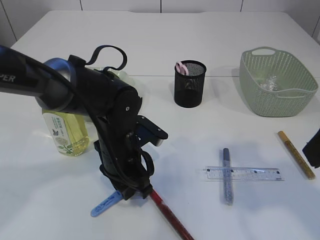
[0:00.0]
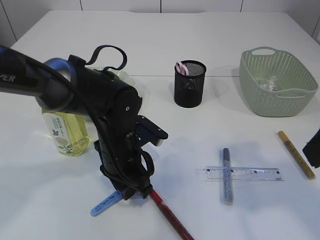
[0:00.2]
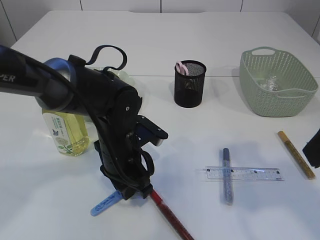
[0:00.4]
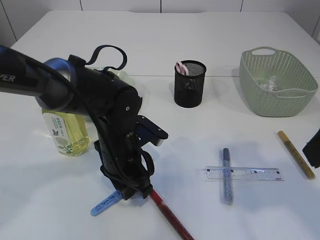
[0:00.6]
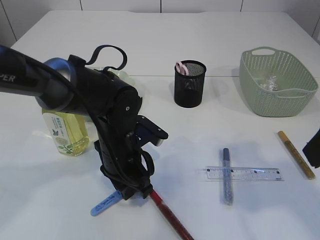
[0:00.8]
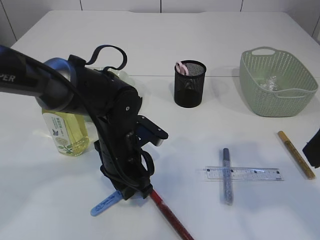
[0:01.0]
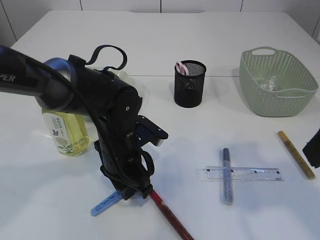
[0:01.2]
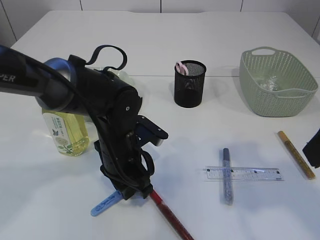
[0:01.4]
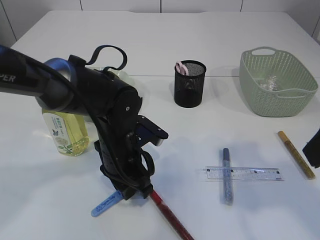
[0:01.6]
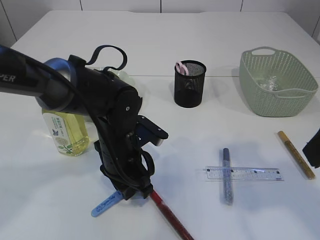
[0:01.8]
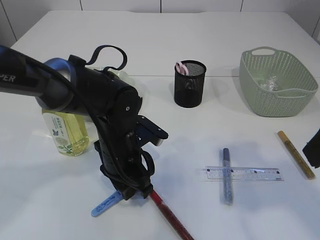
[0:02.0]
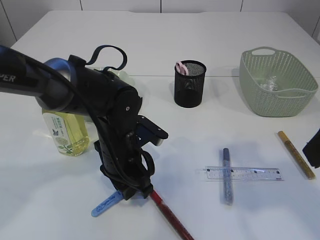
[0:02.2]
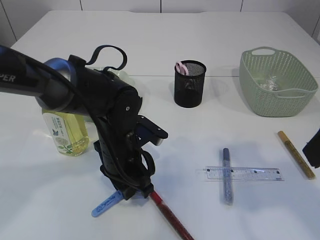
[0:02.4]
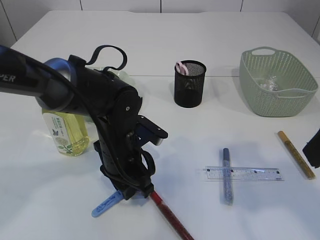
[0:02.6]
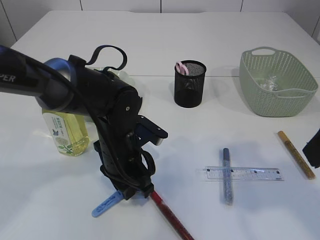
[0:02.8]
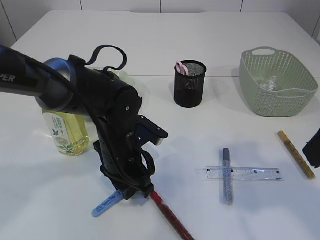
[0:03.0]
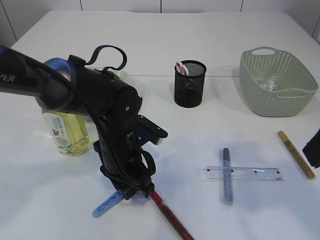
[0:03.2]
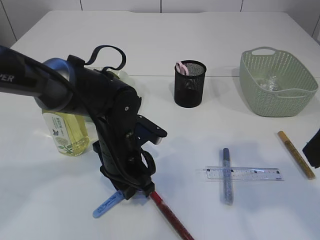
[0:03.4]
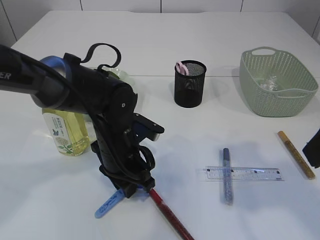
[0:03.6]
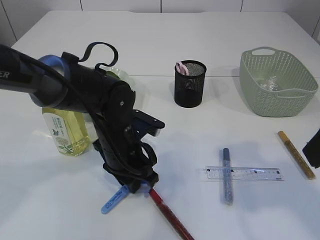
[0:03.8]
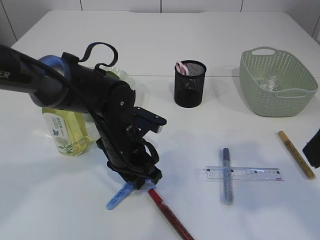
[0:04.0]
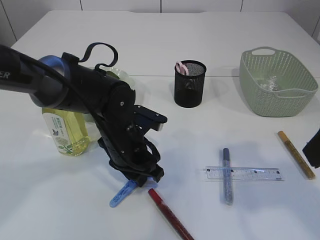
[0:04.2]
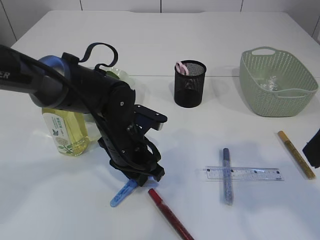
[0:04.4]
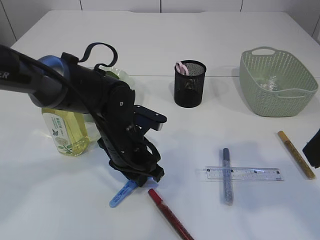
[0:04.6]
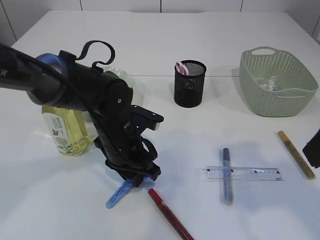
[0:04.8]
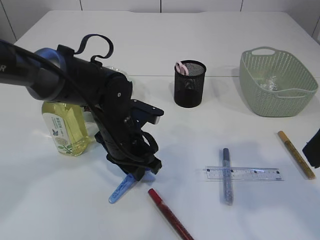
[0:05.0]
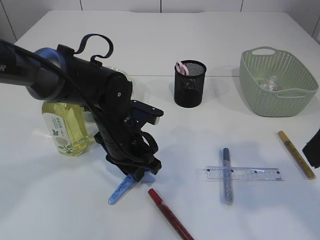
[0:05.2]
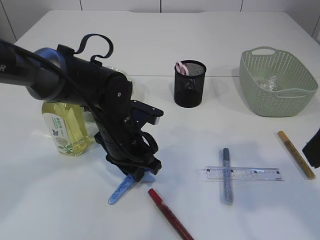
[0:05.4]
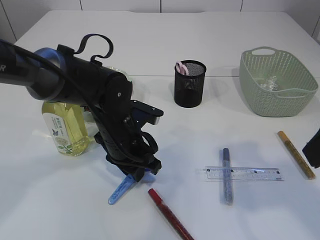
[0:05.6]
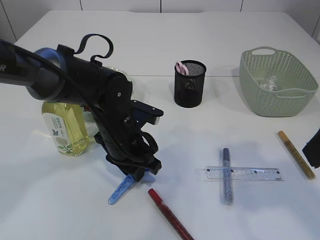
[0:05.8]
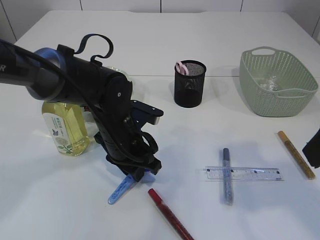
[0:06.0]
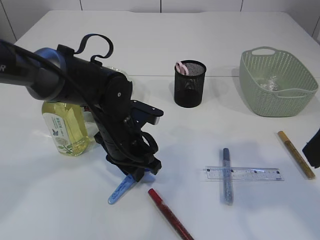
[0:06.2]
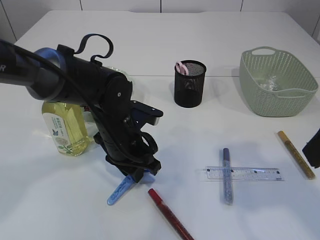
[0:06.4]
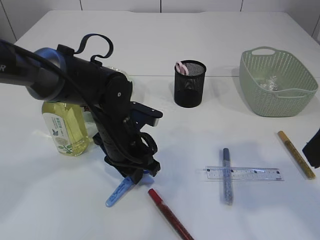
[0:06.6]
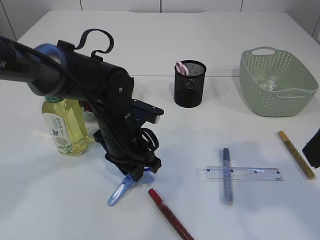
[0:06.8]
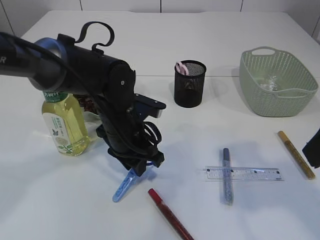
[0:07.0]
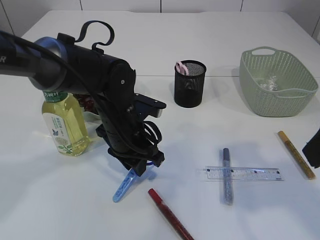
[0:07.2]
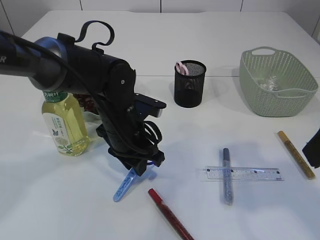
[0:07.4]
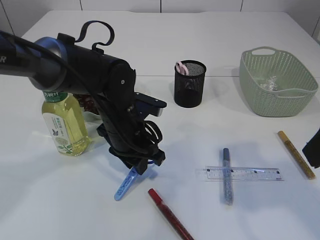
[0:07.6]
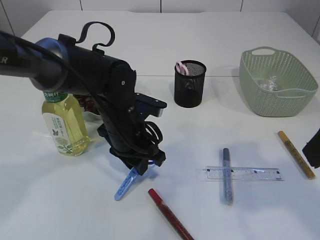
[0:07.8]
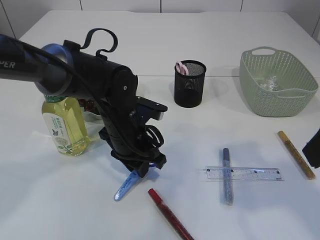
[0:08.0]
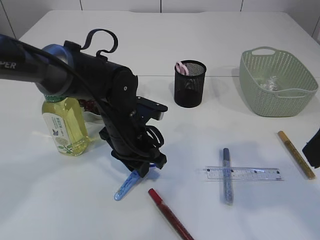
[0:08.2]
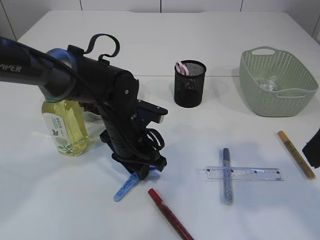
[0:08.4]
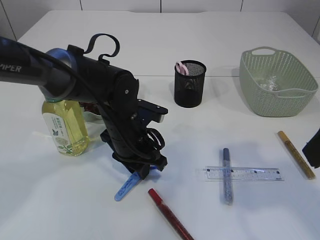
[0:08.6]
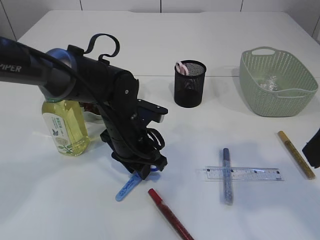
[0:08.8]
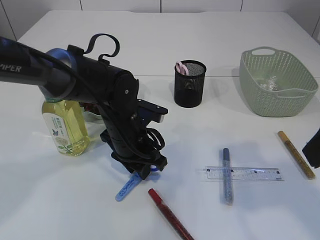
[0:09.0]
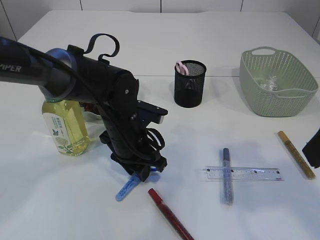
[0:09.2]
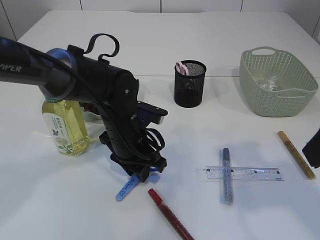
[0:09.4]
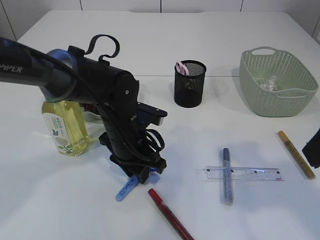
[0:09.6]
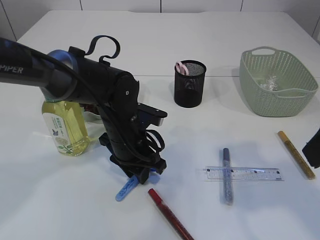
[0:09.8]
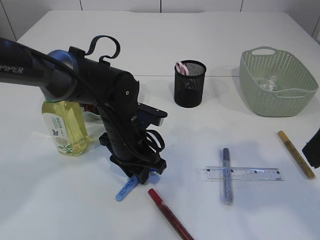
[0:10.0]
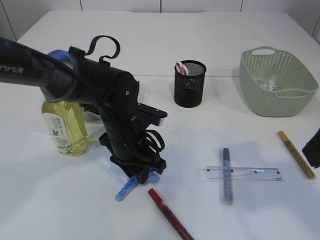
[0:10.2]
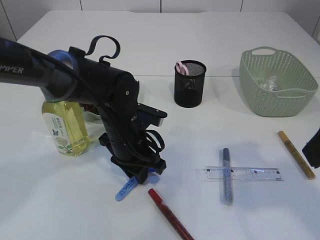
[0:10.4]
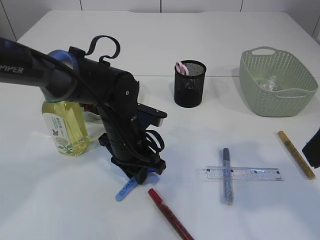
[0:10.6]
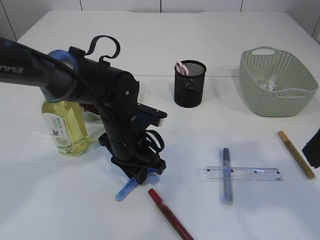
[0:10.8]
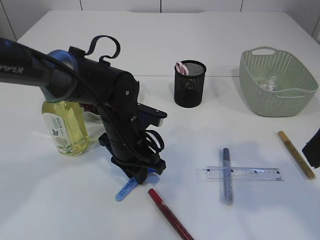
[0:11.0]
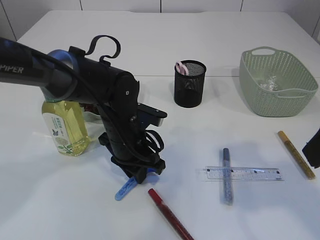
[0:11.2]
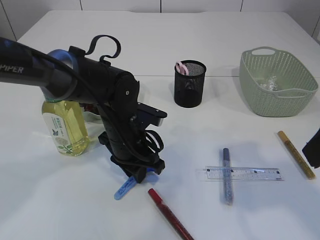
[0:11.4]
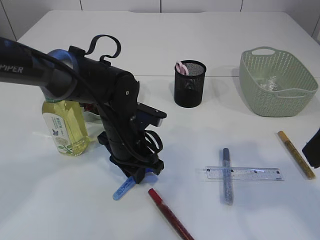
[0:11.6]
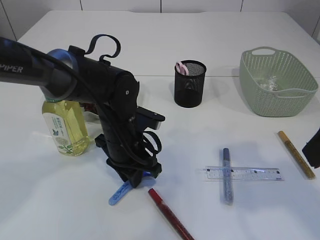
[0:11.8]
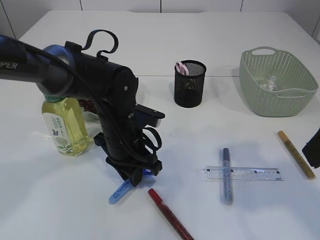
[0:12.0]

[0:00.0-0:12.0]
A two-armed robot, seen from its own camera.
0:00.0 to 0:03.0: Both grippers stay put.
0:03.0 to 0:04.4: The grippers move only a little.
0:04.4 to 0:06.0: Both grippers stay about where they are.
0:06.0 to 0:09.0: The grippers stay close to where they were, moving slightly.
0:09.0 to 0:10.4: The two grippers keep their place.
0:10.4 to 0:12.0: Both grippers stay put.

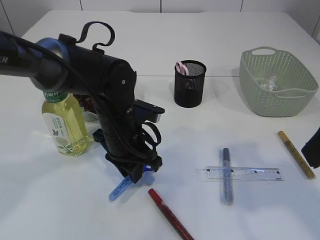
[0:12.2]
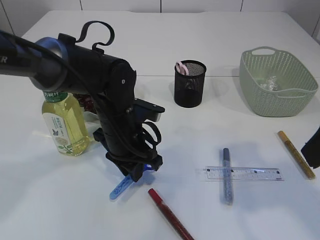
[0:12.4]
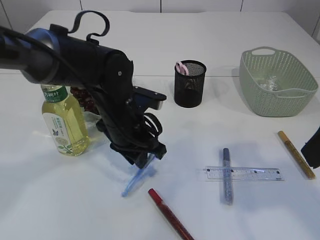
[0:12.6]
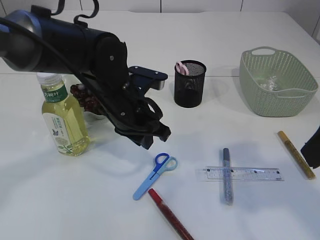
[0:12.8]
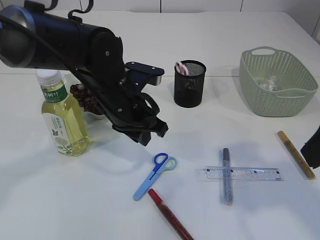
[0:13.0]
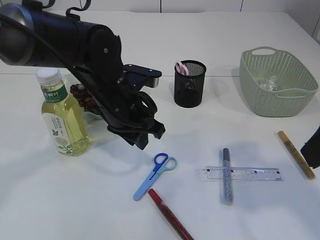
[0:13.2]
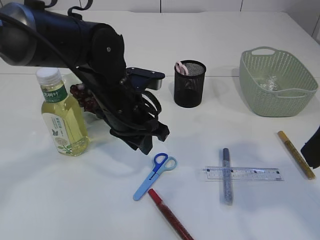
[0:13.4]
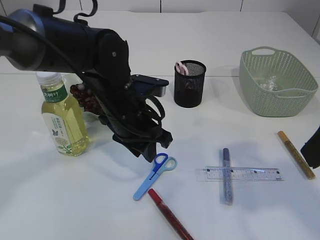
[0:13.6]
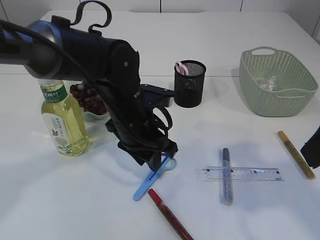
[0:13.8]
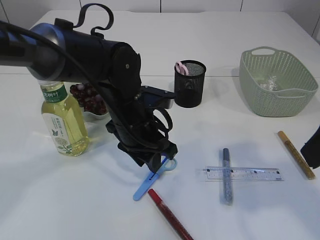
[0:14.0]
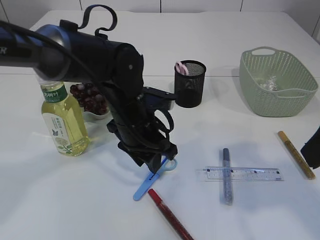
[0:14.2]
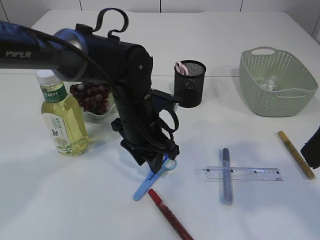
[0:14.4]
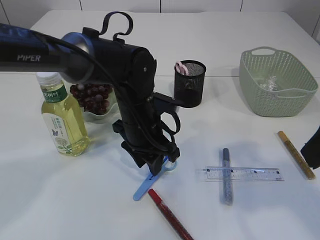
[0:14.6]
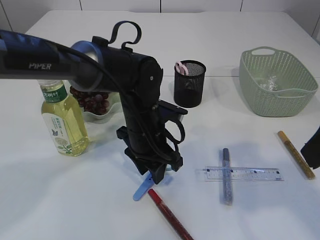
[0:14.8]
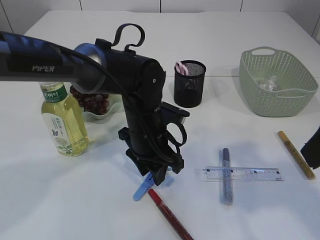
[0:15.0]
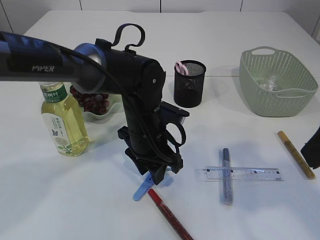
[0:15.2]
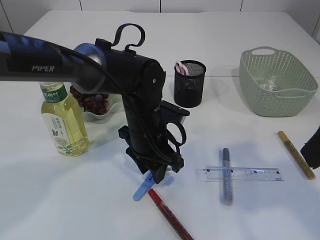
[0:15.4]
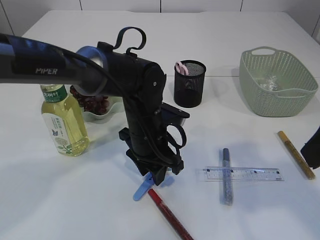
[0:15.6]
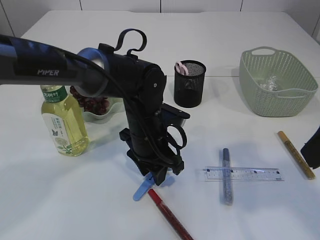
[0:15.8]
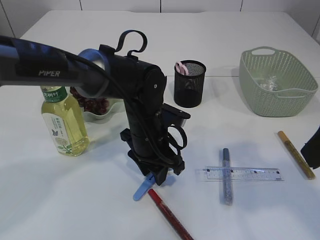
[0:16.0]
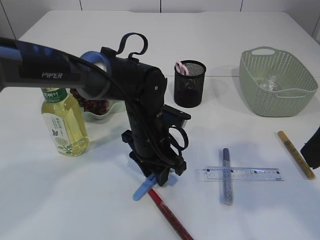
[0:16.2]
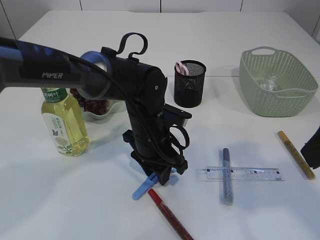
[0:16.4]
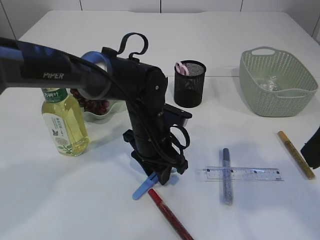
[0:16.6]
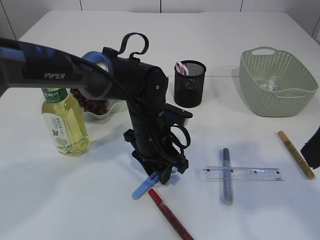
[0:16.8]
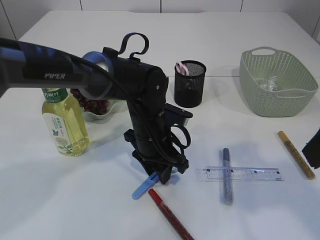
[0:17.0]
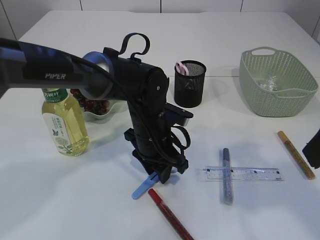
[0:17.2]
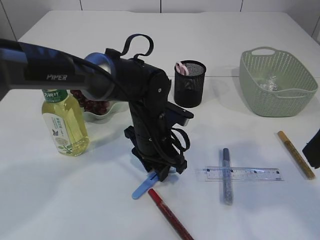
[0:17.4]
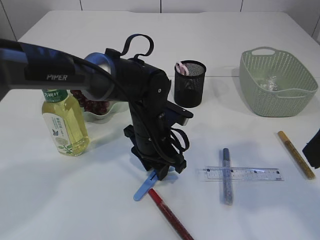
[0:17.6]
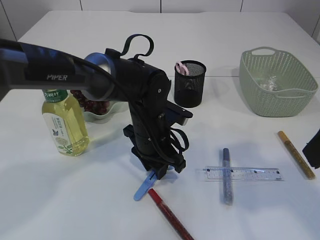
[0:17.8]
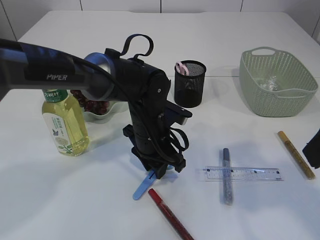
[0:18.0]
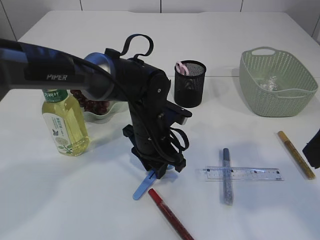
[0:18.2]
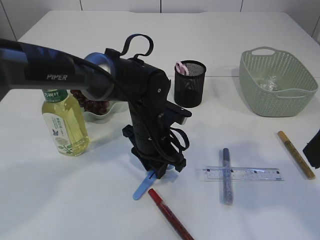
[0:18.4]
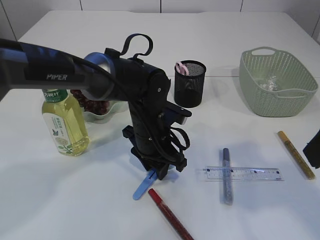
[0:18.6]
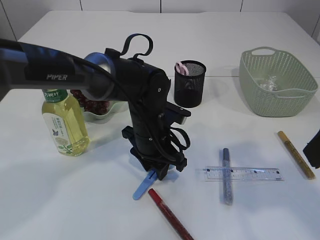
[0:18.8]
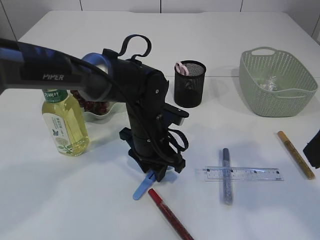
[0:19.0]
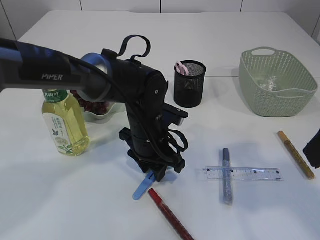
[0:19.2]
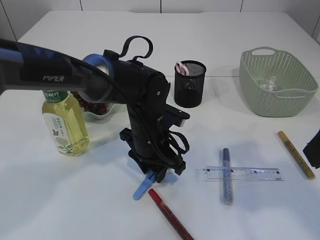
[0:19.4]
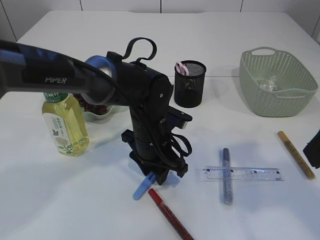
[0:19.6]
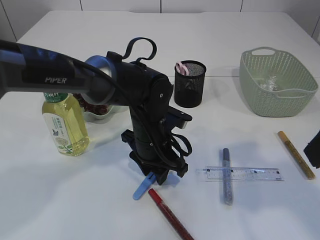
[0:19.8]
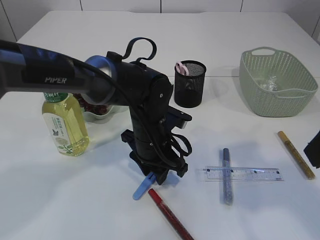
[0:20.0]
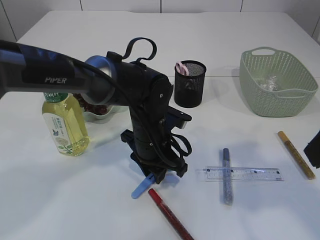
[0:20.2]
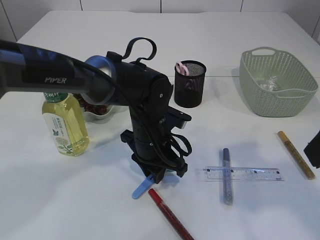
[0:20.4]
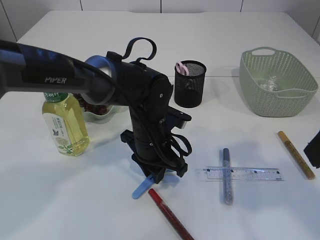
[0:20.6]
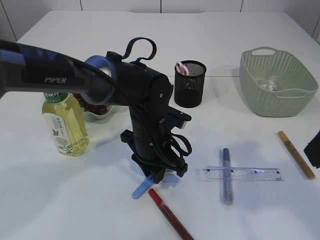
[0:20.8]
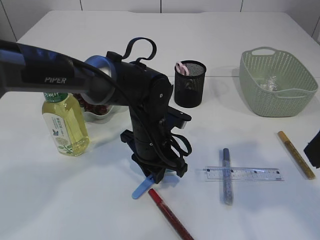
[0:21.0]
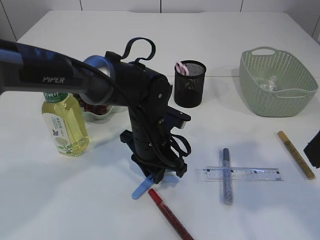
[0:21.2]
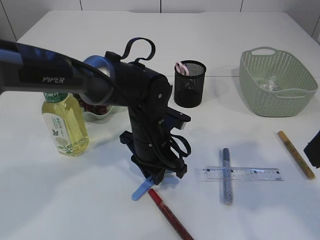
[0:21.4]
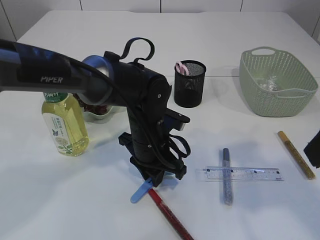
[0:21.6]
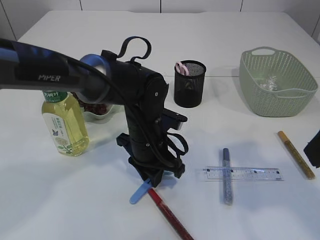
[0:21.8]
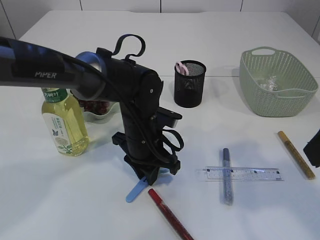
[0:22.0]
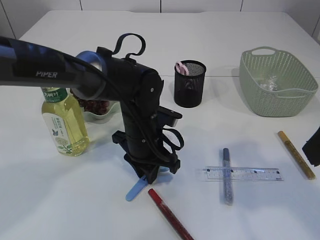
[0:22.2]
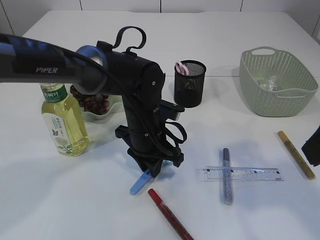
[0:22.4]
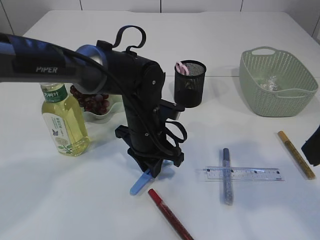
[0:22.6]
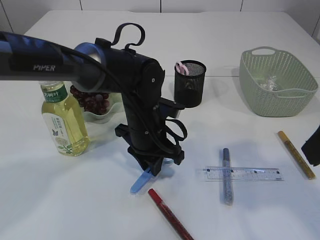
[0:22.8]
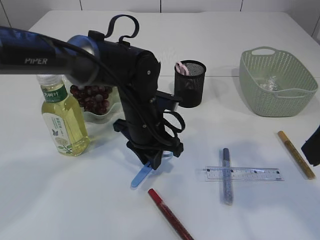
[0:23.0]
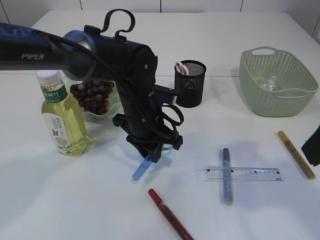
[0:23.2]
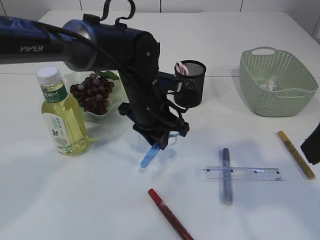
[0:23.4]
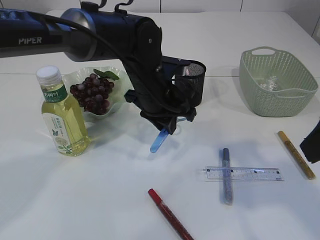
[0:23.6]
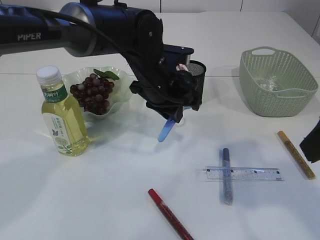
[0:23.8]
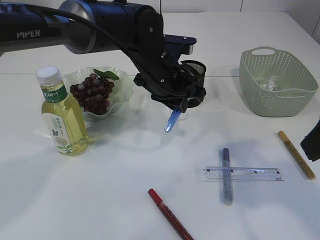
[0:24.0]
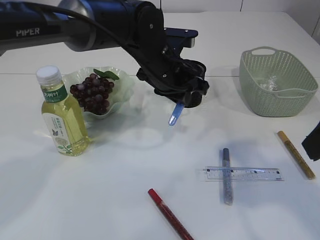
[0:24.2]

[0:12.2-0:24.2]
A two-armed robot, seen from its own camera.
Step, 0:12.2 to 0:23.4: pick up the blue scissors.
0:12.2 to 0:19.8: There are only small adjustments of the grippers.
0:19.8 to 0:21.2: The left gripper closes.
0:21.2 to 0:22.6: The grippers move only a little.
0:22.6 to 0:24.2: The left gripper moves upward and forward, roughly 10 cm.
